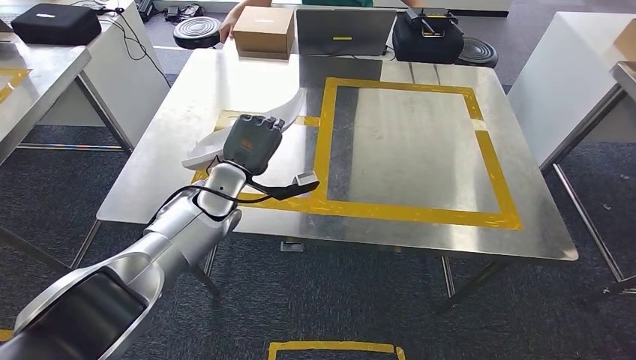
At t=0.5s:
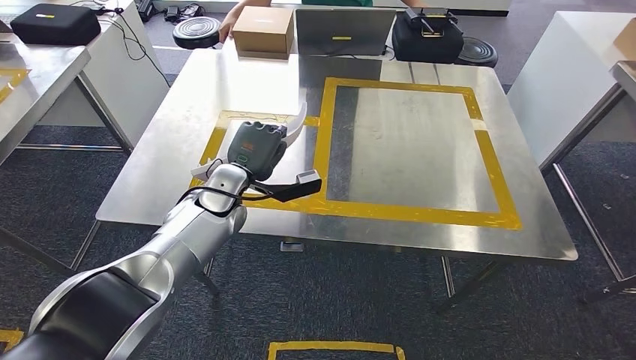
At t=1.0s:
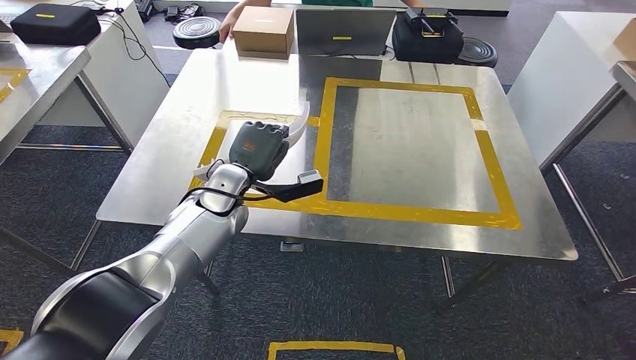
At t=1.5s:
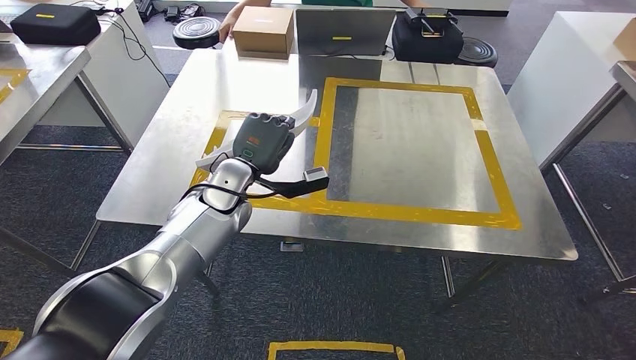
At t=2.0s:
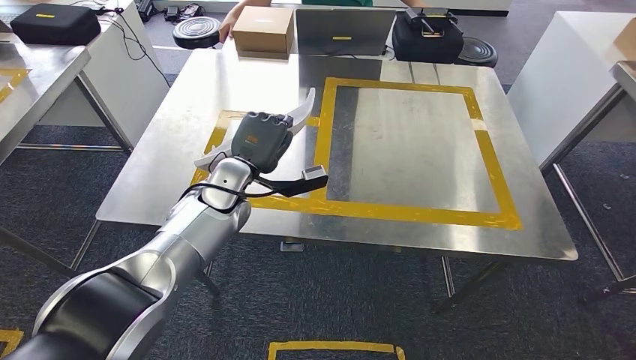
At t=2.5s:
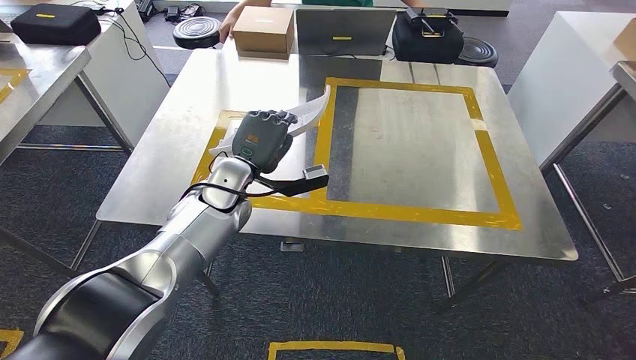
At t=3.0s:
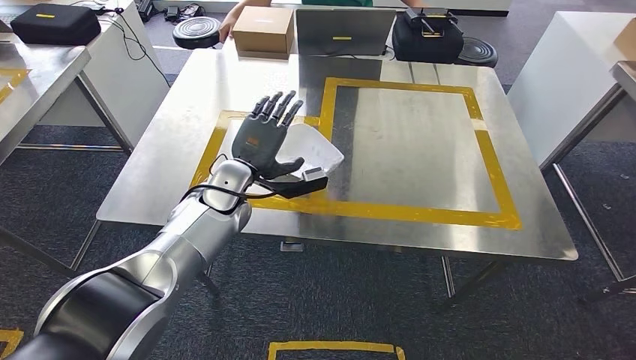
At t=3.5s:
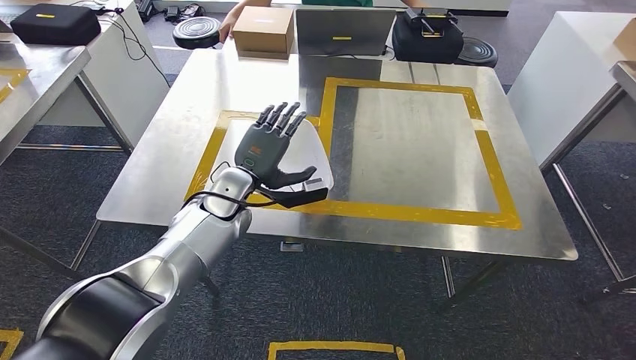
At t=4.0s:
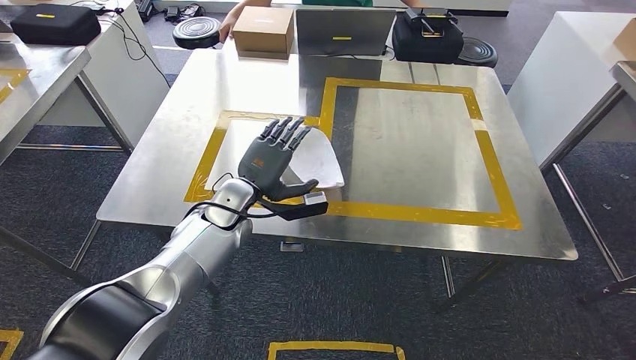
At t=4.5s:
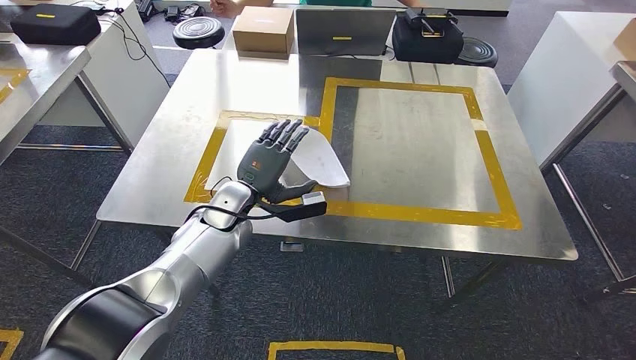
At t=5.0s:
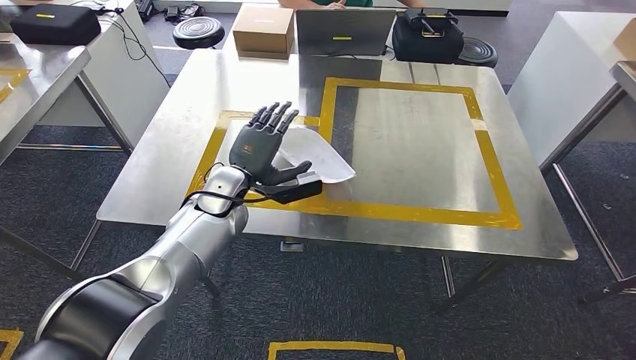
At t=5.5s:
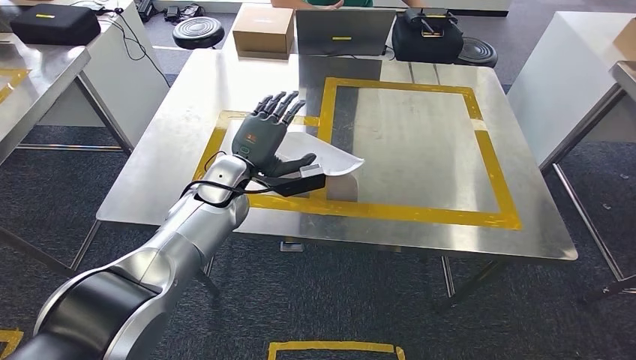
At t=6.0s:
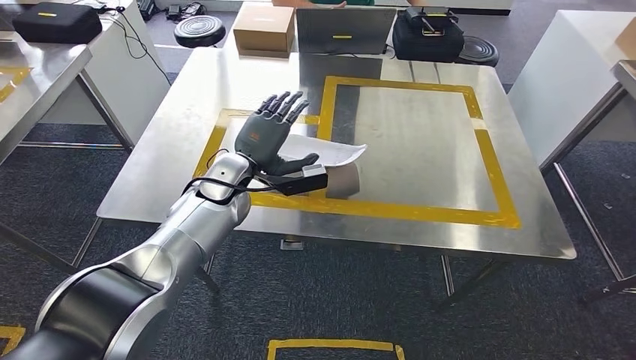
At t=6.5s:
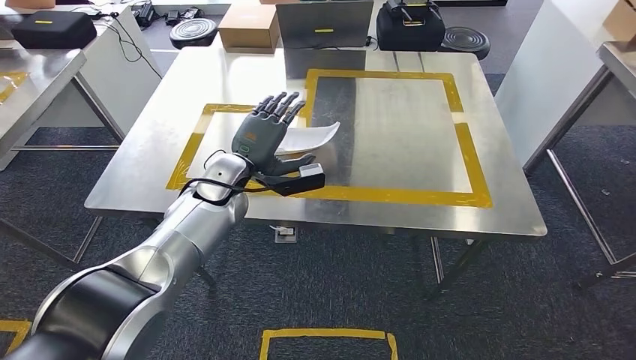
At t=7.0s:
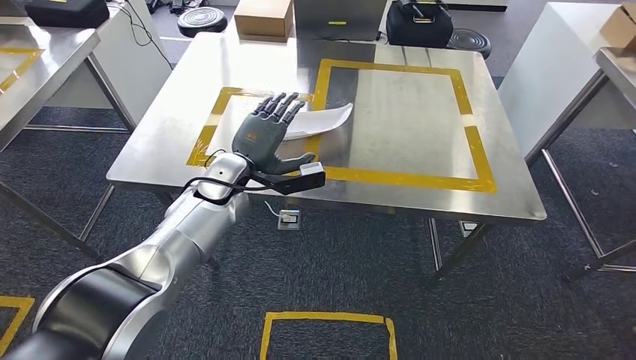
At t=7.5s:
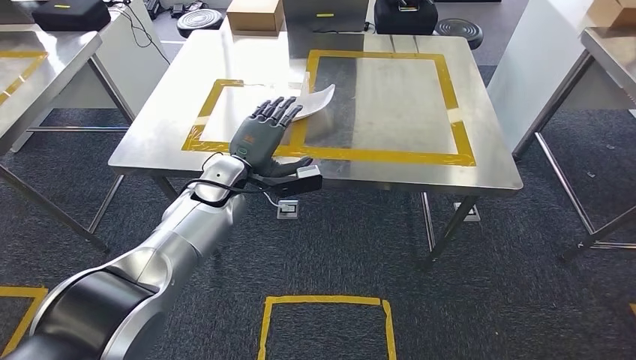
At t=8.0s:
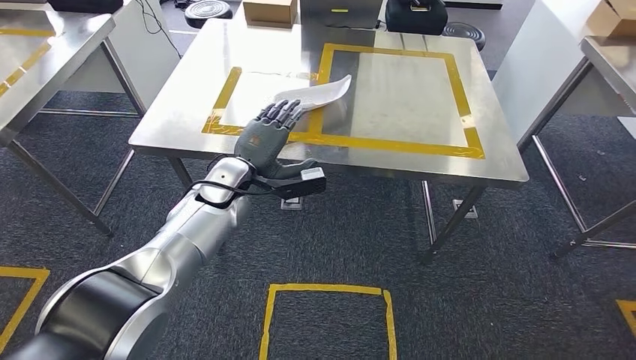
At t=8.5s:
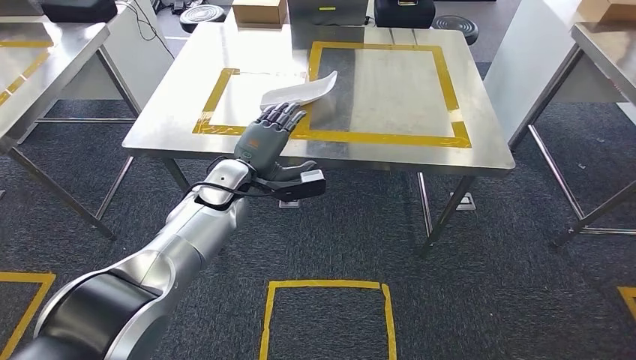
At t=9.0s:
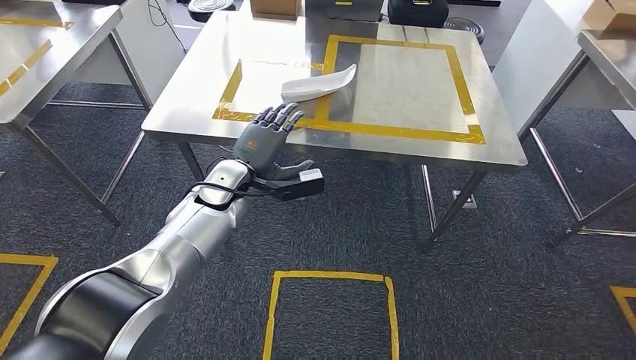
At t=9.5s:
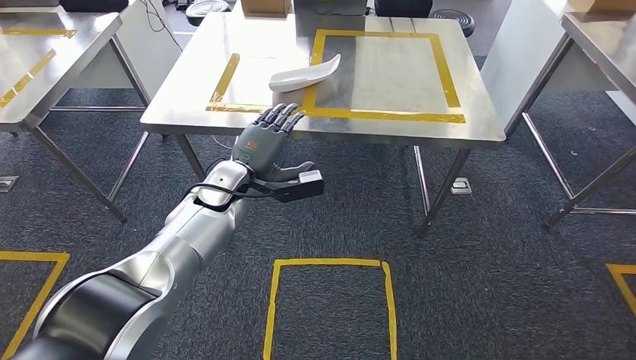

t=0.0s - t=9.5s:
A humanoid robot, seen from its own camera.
Step, t=0.0s - t=3.5s: Insert the small parts into the corresponding slots on the workbench.
t=0.0s - t=4.0s: The hands move only a little.
t=4.0s - t=5.5s: There are only small adjustments of the hands.

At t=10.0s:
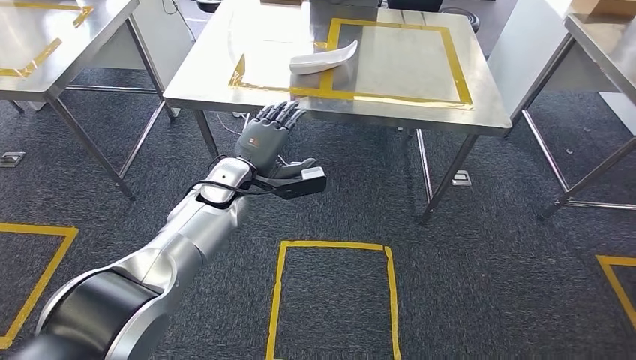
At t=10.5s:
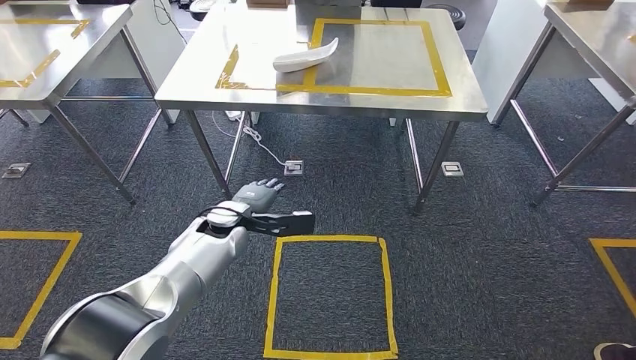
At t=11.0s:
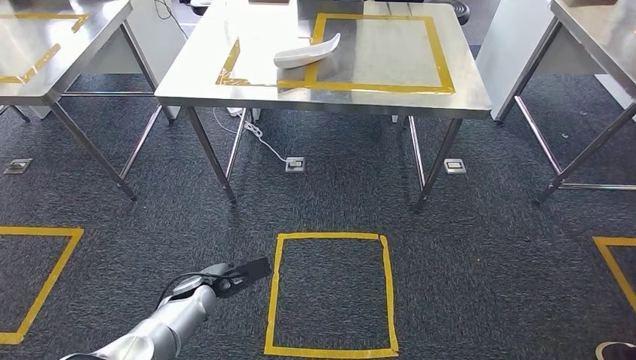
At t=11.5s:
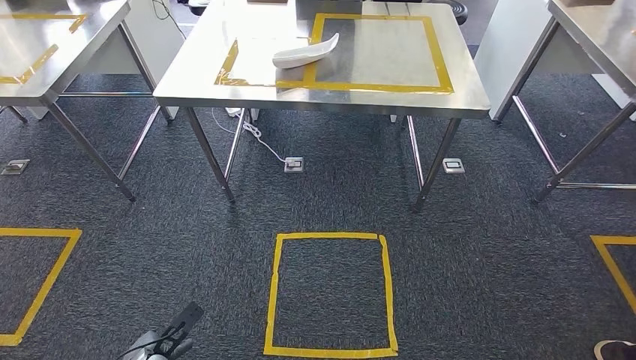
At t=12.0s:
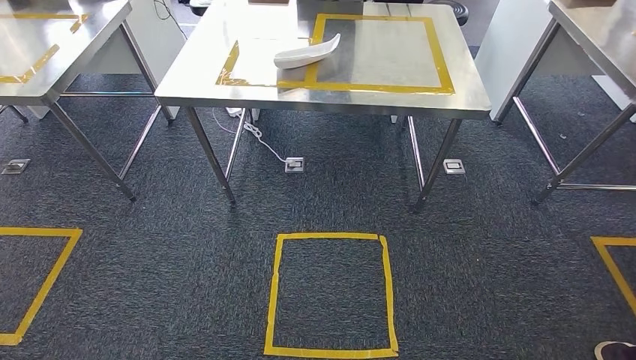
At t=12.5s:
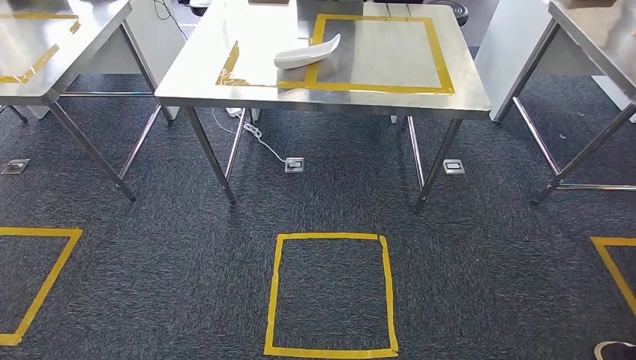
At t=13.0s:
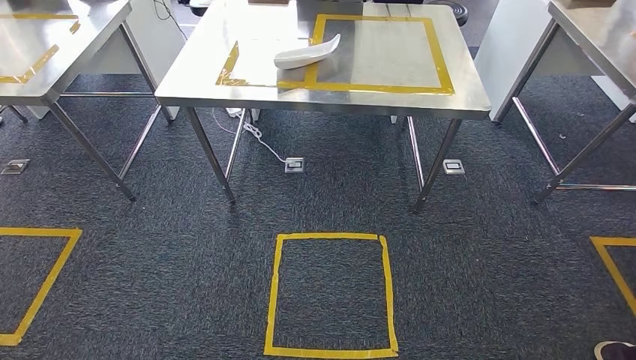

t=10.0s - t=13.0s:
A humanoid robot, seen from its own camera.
Step, t=10.0s - t=12.5s: Return to the initial position at the workbench.
t=11.5s - t=13.0s: The left hand is displaced backward by about 15 cm. Meanwhile the right hand shifts some 5 cm to the right.
